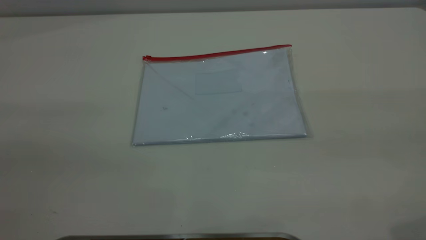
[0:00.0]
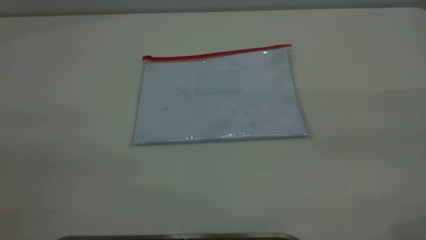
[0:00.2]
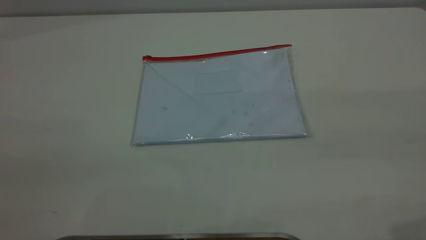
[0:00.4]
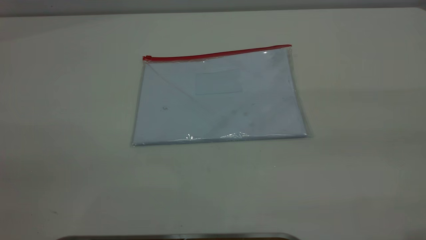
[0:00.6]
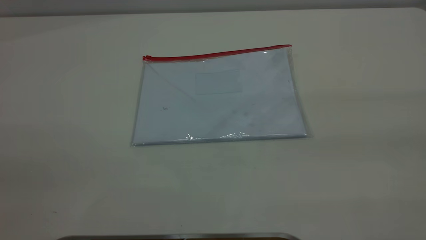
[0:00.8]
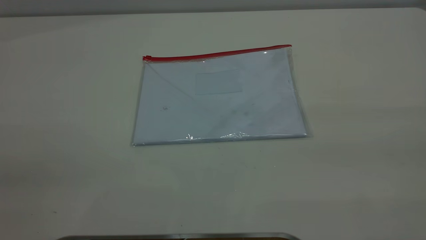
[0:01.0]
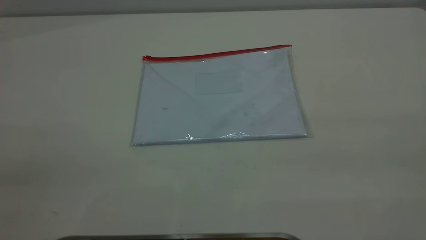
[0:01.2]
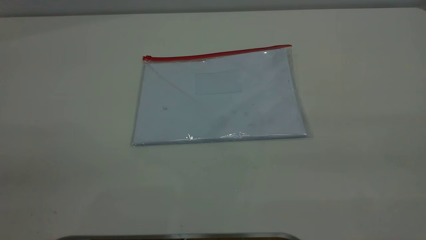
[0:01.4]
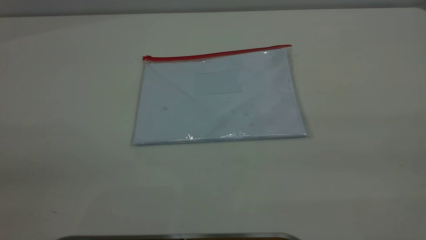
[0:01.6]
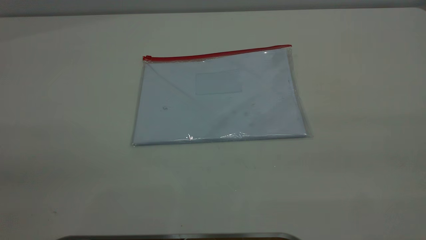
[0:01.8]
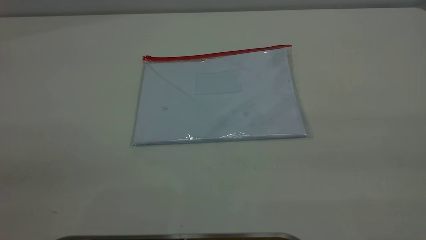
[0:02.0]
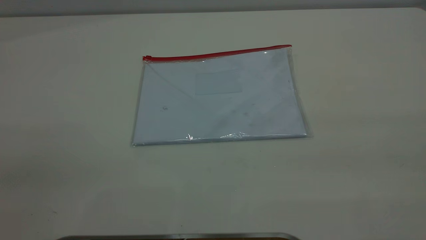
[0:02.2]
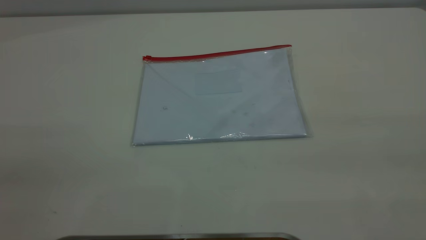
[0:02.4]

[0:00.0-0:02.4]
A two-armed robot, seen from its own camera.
0:01.2 to 0:02.4: Neither gripper changes place.
